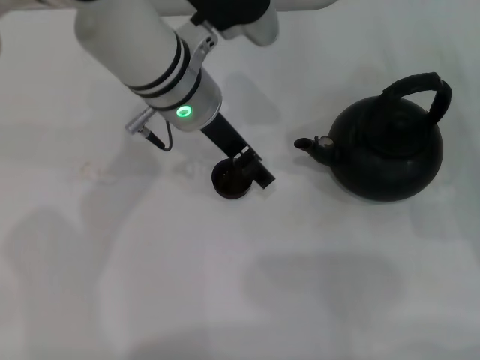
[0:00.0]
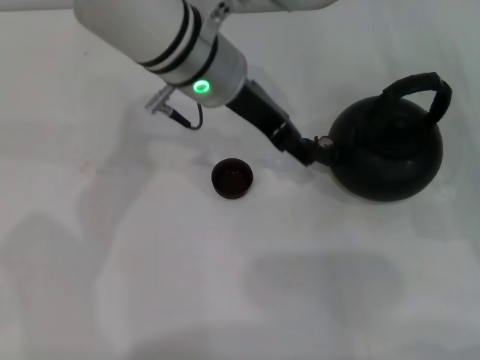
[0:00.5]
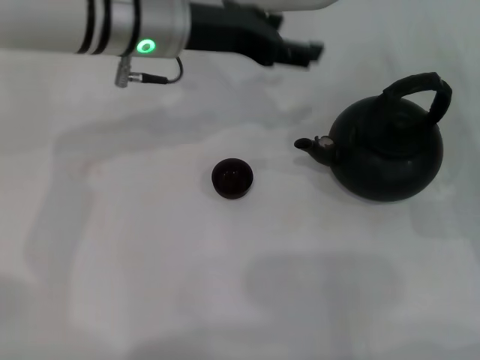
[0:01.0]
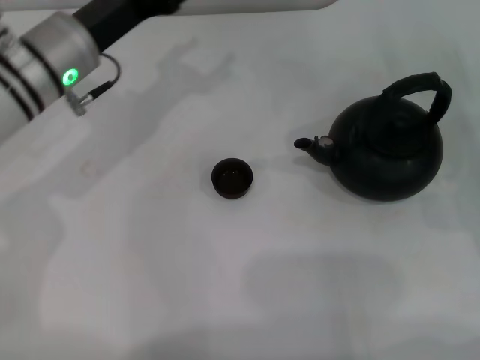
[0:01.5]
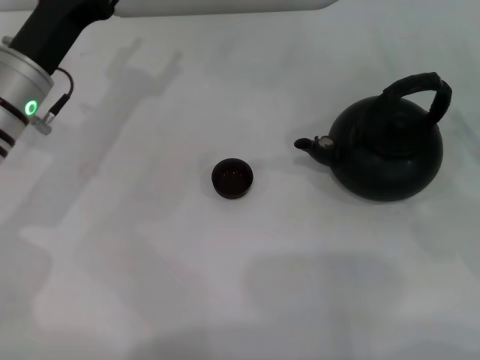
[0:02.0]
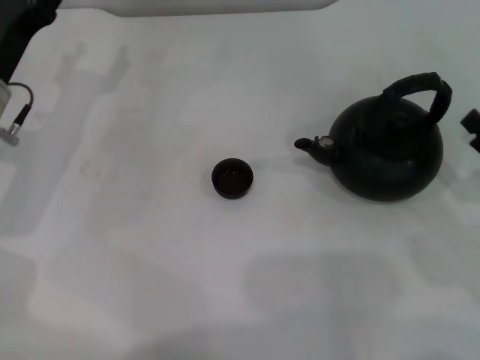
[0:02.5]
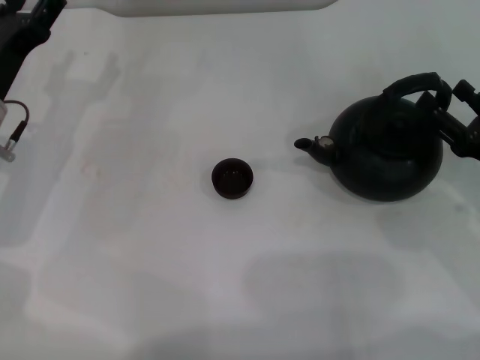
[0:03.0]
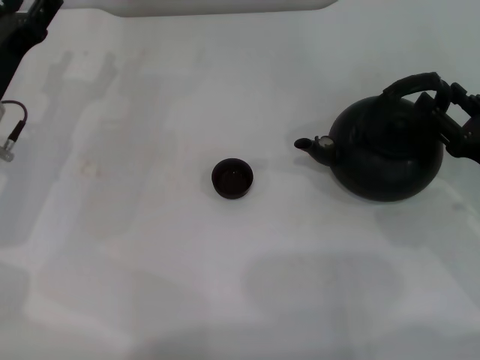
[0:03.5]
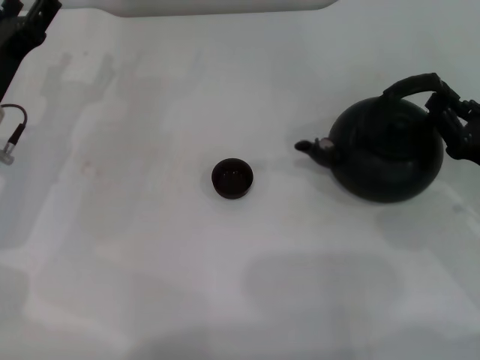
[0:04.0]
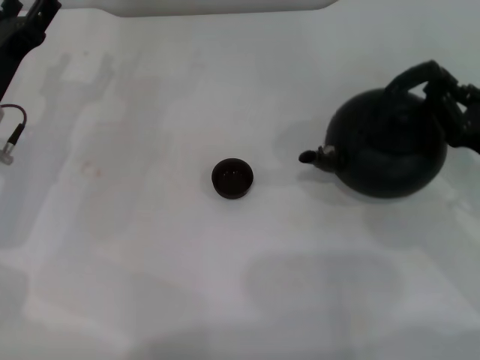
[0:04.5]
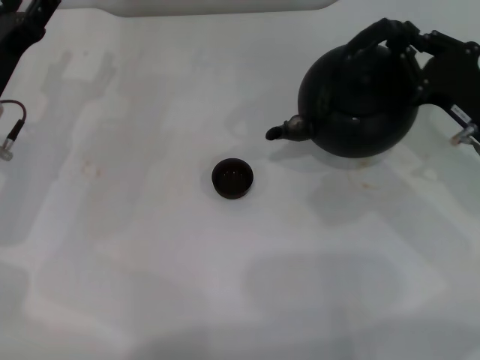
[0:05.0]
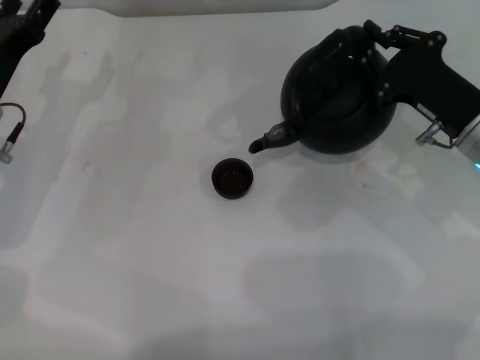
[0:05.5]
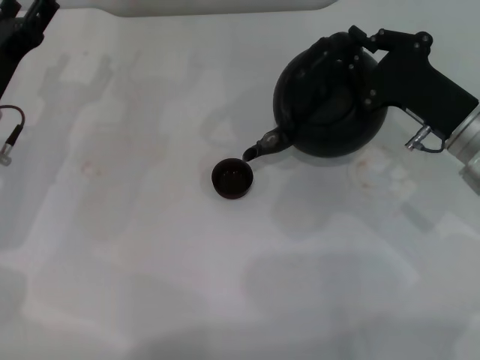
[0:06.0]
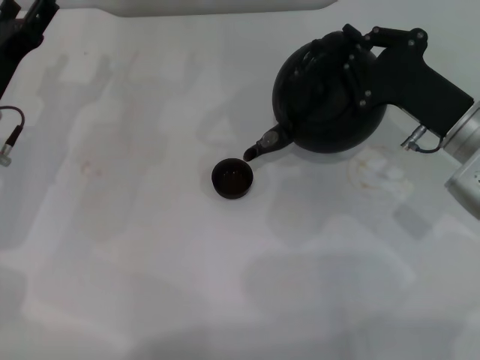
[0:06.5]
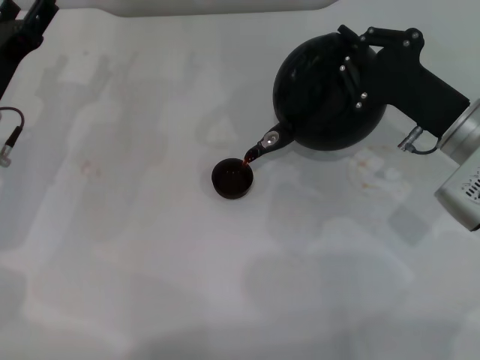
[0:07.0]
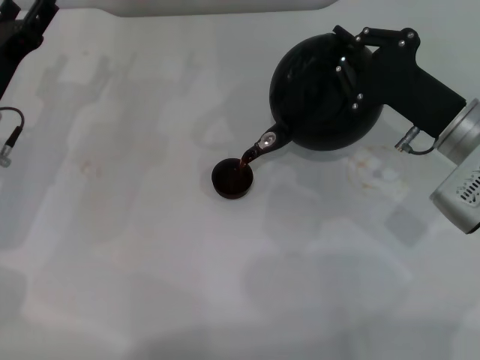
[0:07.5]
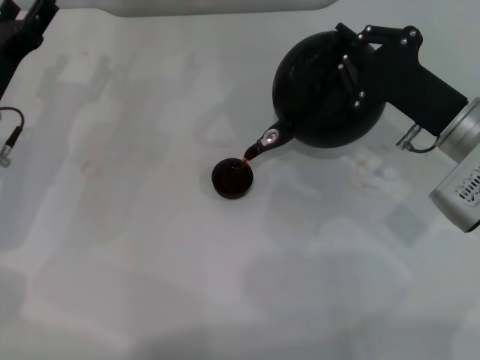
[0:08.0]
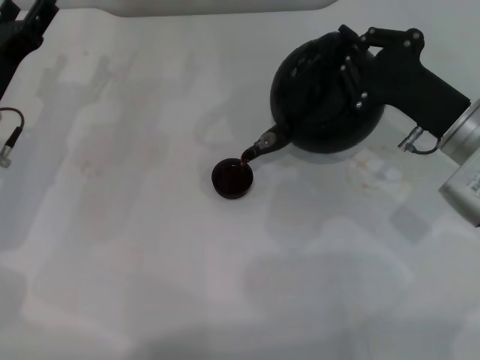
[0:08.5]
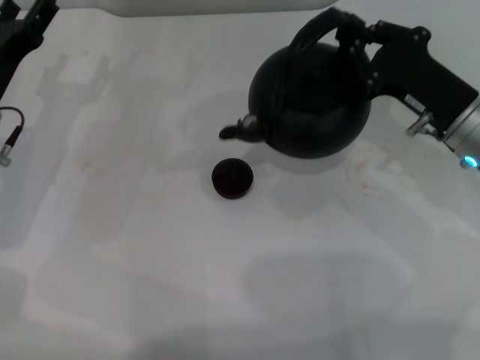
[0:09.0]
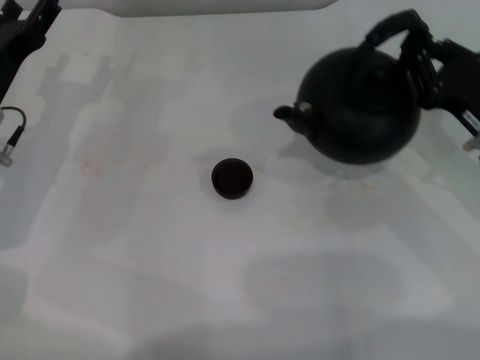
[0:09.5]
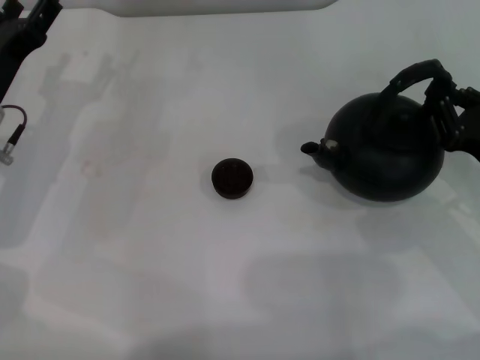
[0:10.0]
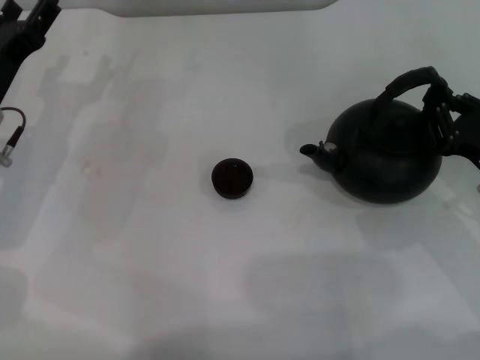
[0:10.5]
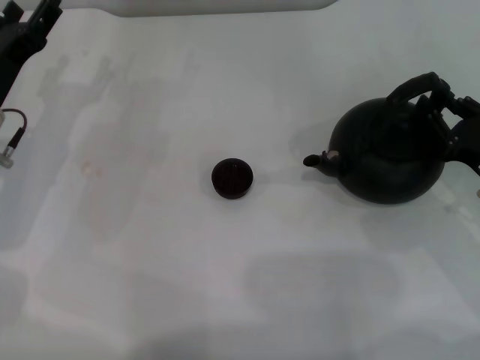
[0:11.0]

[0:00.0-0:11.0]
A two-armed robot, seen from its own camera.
Task of the whole recording: Grasp the handle of the teapot with one hand and pour tea into the teacup.
Step, 0:00.5 to 0:05.0: Pick up the teapot with the right gripper.
Step, 0:05.5 to 0:09.0: Pour tea into the teacup with the right gripper.
0:00.0 to 0:02.0: The left gripper travels to the left by roughly 15 cm.
0:02.0 to 0:03.5: The left gripper shifts by about 5 cm; the right gripper changes place by roughly 5 cm.
0:03.5 to 0:05.5: The right gripper goes roughly 10 cm to the left and forward, and closes.
0:09.0 to 0:11.0: The right gripper heads to the right, backward and downward, covering about 10 cm.

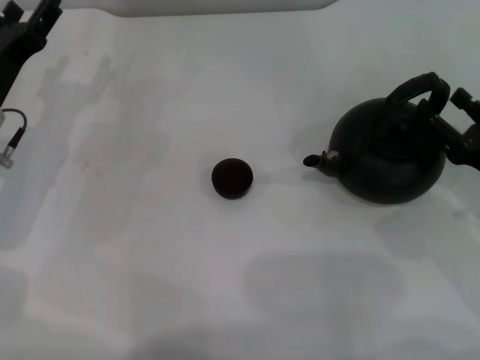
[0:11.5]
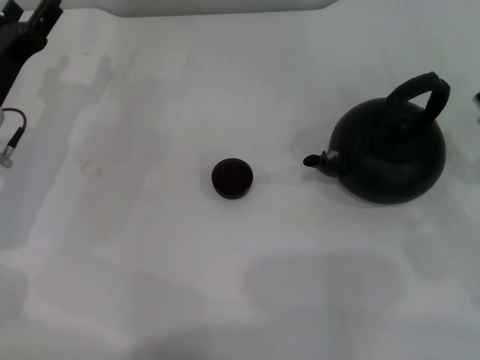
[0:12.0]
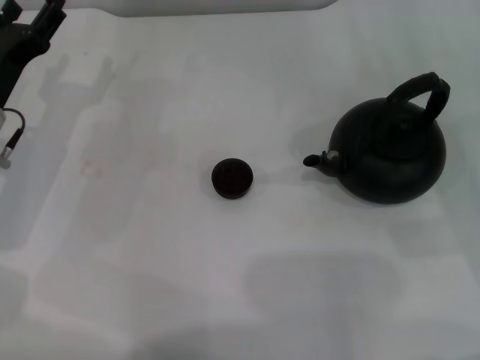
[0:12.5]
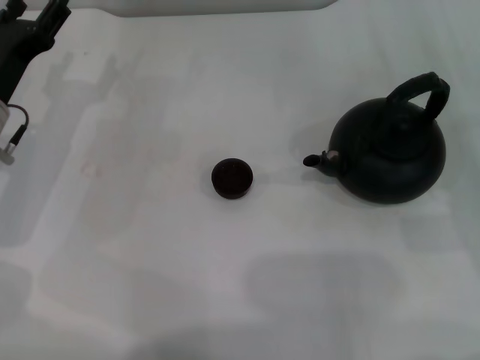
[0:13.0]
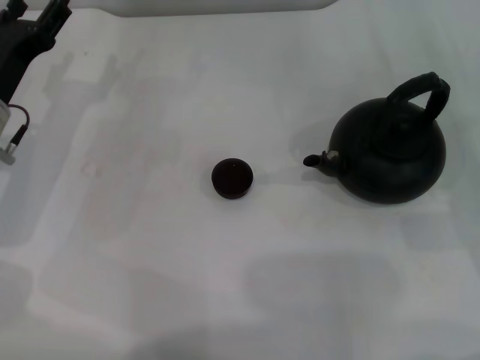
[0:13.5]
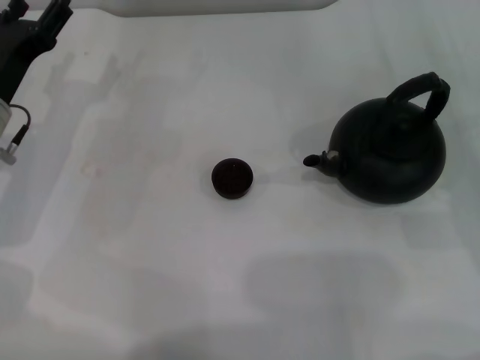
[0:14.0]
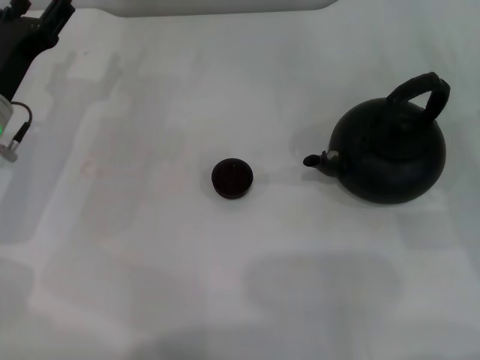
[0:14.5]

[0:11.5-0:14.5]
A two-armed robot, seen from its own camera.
Task of the whole recording: Grasp the handle of the teapot with one hand and pour tea into the teacup.
0:11.5 to 0:13.0: The right gripper ends up about 5 cm from where it was, and opens up.
0:13.0 to 0:14.5: The two grippers keep their place.

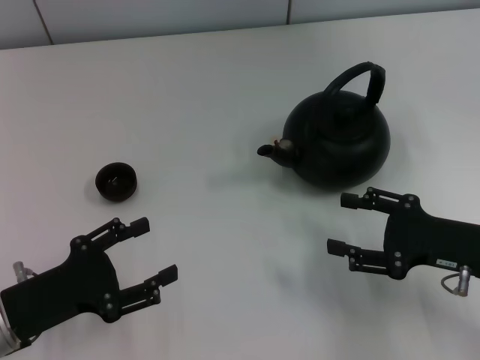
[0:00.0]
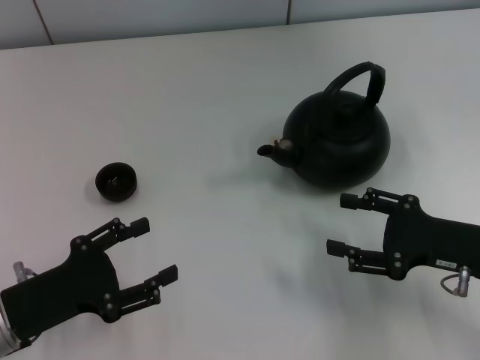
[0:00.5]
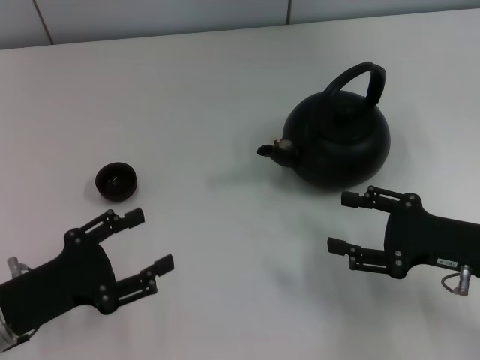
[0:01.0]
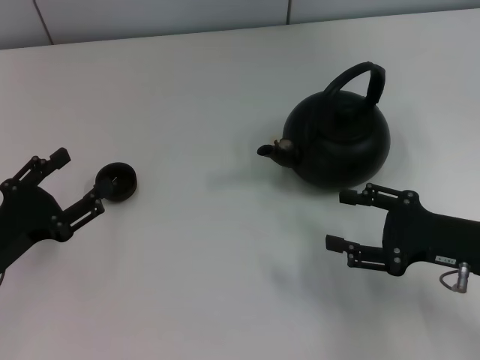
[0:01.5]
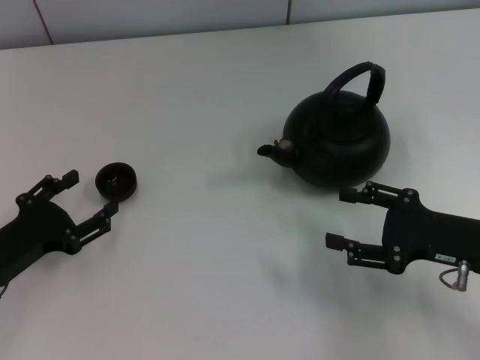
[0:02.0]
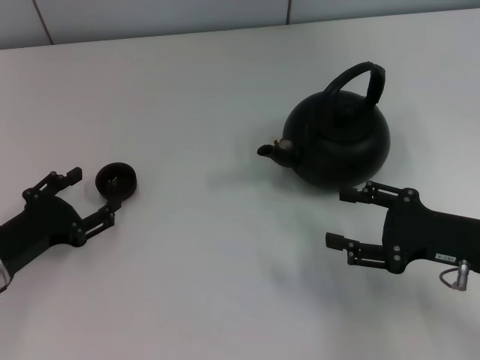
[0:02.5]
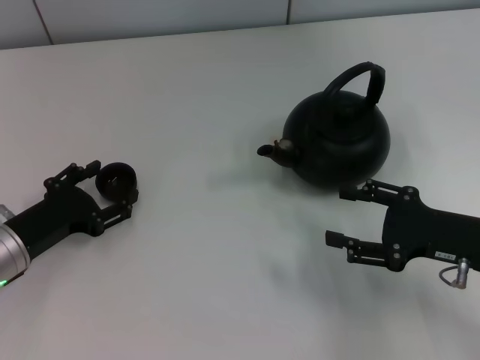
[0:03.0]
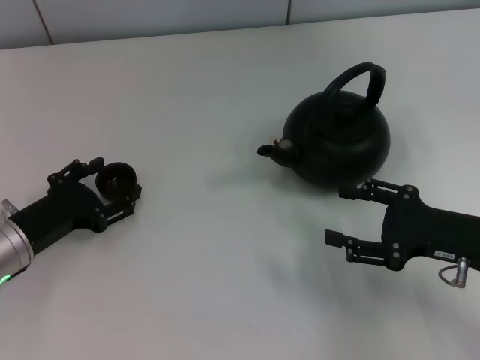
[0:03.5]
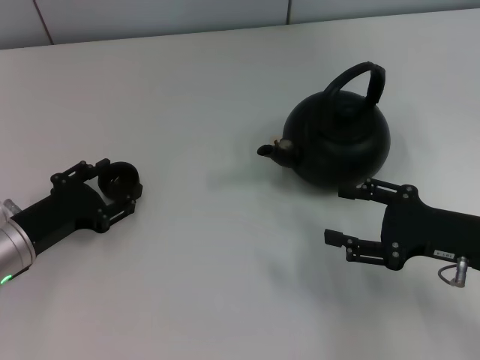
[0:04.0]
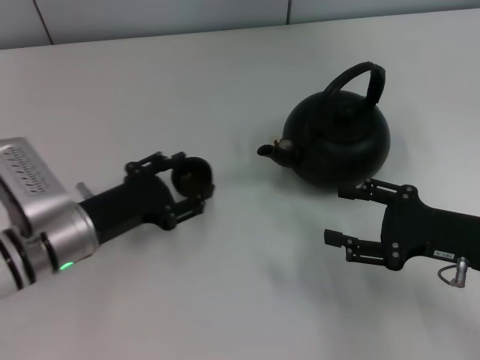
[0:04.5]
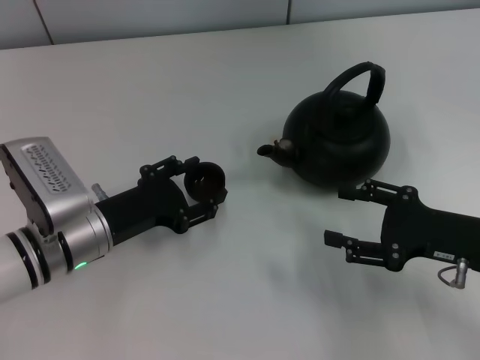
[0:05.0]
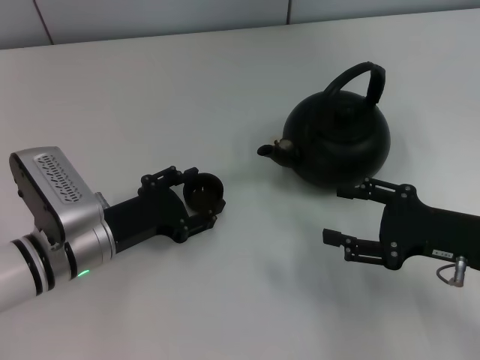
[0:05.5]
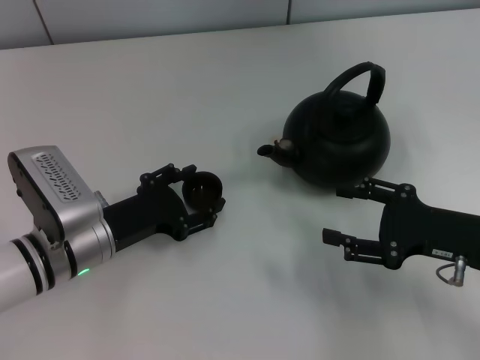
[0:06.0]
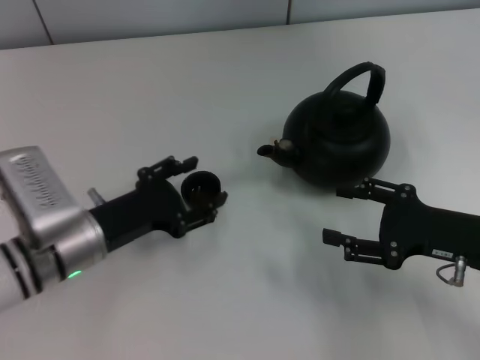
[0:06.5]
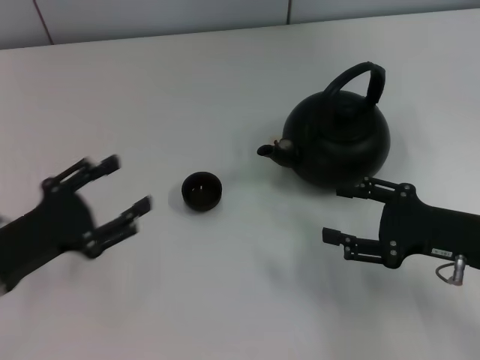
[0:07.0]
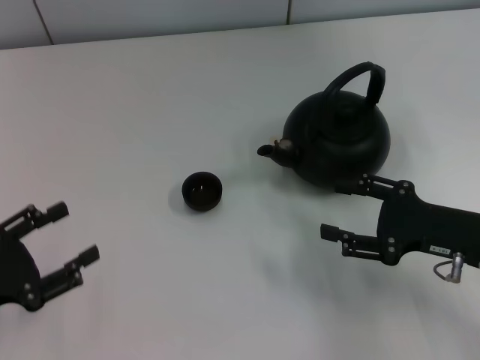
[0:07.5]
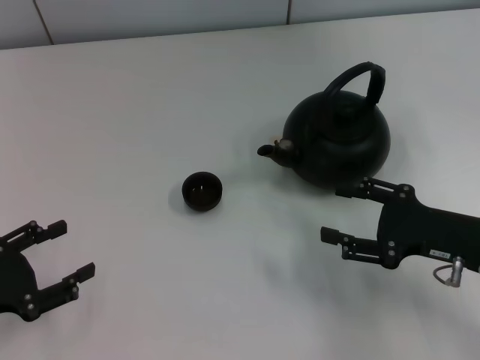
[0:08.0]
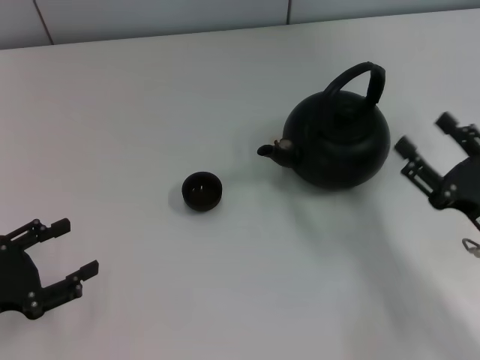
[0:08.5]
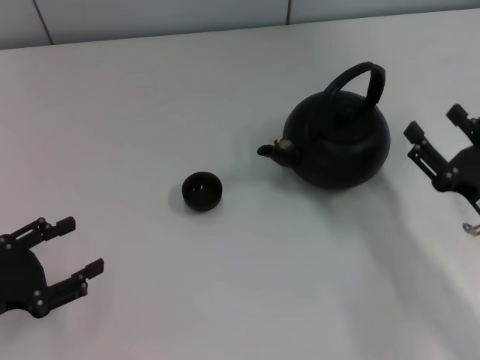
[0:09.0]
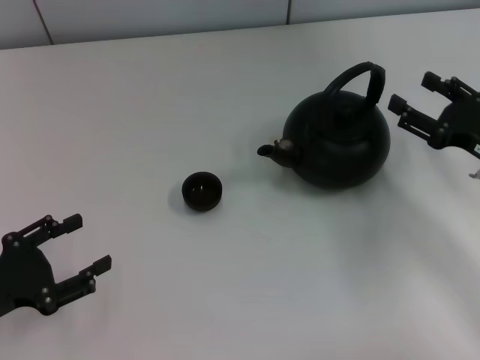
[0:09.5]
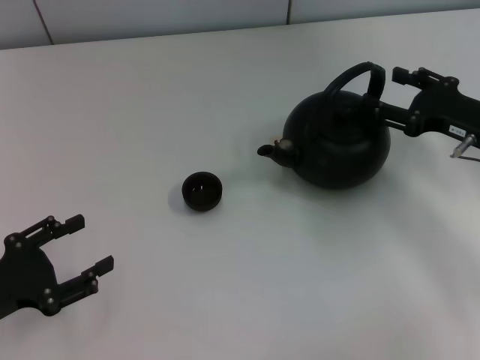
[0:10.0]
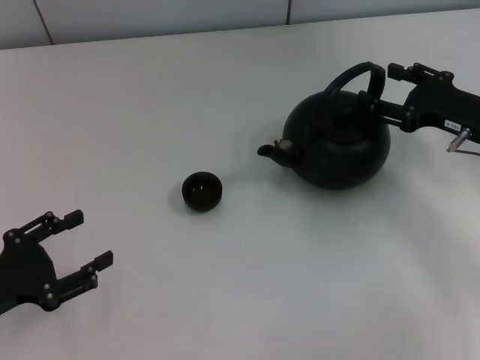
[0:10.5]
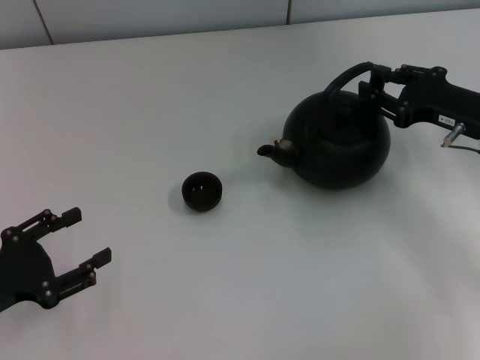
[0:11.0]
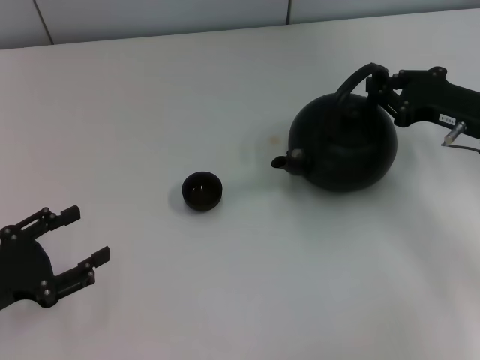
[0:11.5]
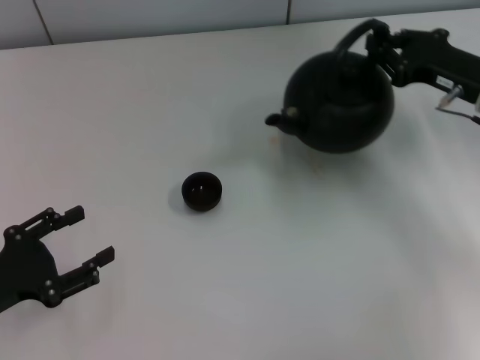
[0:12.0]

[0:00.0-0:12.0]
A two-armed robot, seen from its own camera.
Task of the whole recording: Grasp the handle of the teapot with one hand and pour tea into the teacup.
Step, 0:00.0 to 0:04.0: Pick up the teacup with the left gripper.
Step, 0:04.5 to 0:06.5: Place the teacup in the center of view with the left gripper.
Step, 0:07.0 to 0:11.5: Pick up the teapot with the right gripper.
0:02.0 to 0:04.0: The left gripper closes.
0:04.0 to 0:06.0: The left gripper travels to the right by some 10 cm.
0:06.0 to 0:08.0: The left gripper is displaced to the left and backward by some 15 cm, and opens up.
0:08.0 to 0:10.0: The right gripper shifts roughly 10 cm forward.
0:10.0 to 0:12.0: The right gripper closes.
